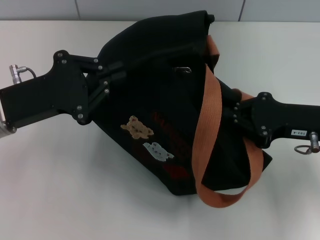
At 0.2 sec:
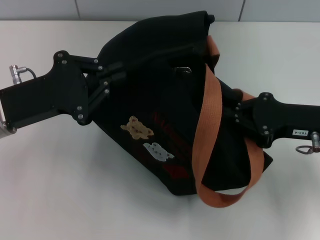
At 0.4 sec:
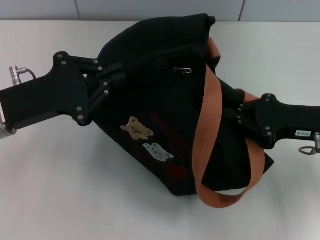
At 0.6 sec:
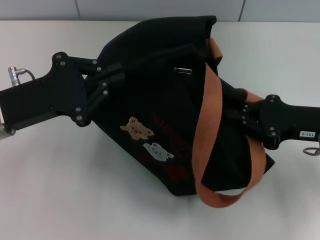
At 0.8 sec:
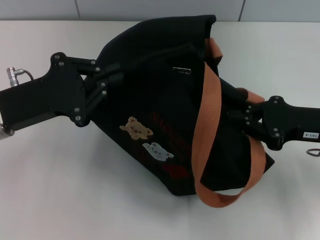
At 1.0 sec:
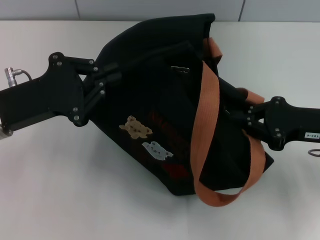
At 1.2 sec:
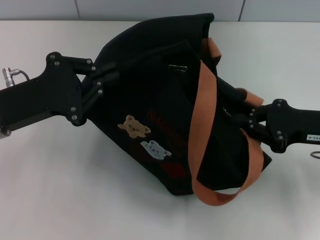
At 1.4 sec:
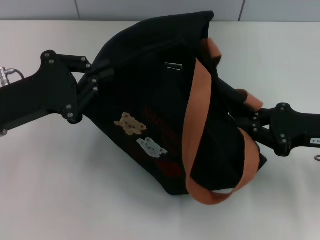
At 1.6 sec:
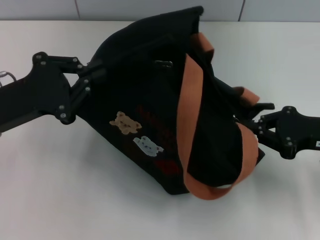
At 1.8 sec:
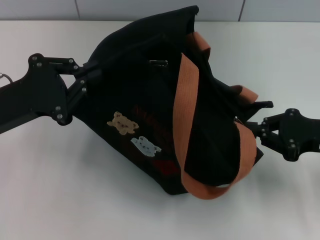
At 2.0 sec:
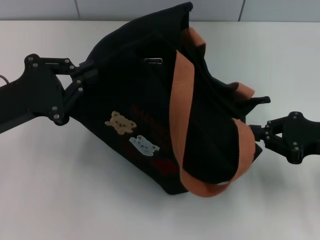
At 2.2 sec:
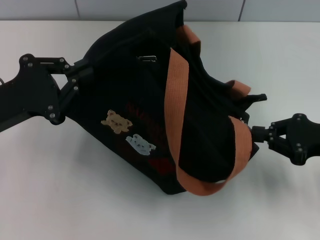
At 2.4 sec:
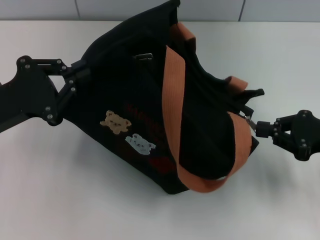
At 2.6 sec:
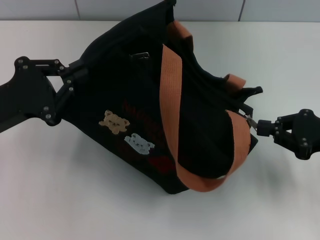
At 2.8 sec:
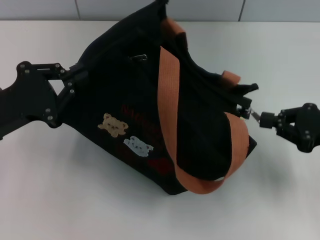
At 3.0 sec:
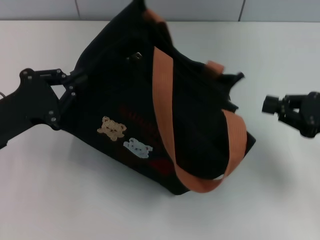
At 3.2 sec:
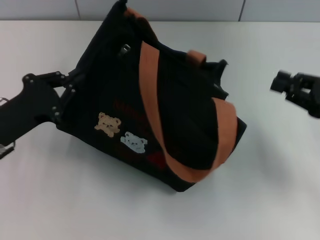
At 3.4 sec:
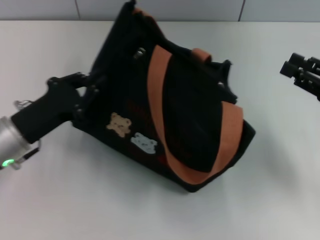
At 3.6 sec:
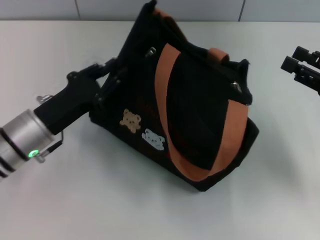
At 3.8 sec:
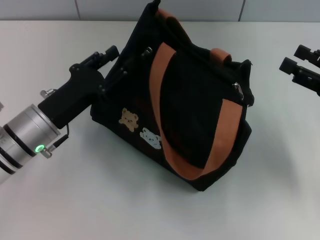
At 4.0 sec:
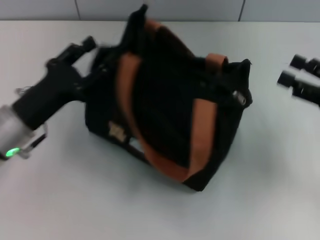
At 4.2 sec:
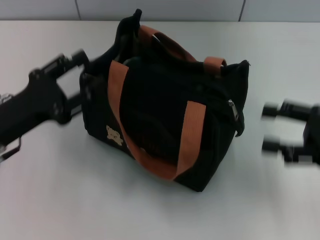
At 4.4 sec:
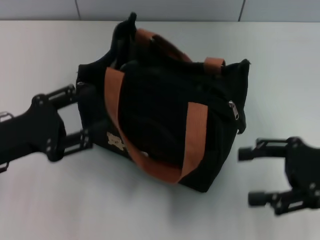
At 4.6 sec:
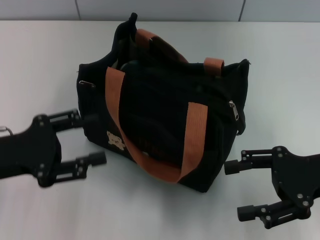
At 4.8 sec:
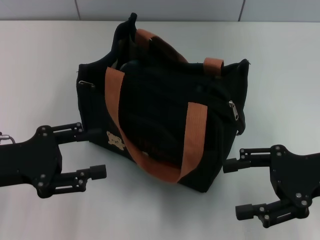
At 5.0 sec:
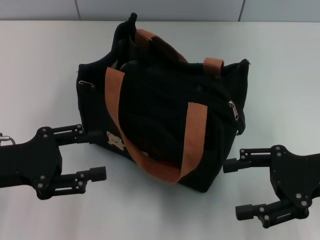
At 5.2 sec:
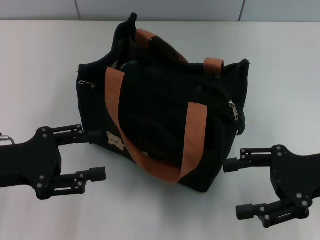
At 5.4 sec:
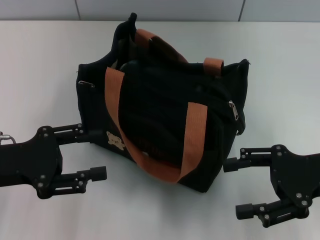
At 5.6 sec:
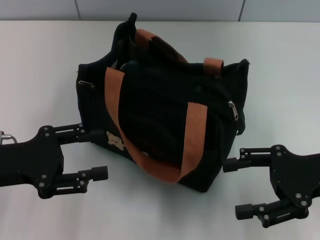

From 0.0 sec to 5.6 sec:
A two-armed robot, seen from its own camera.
Step, from 0.0 sec to 2.8 sec: Pull open the zipper with your right hand.
Step, from 3.0 sec to 4.0 sec: Grab the bag with your left hand.
From 0.0 sec to 1.4 sec: There are only small adjustments of the grippers.
From 2.8 sec to 4.2 sec: The left gripper opens its fingers. The right gripper opens up.
